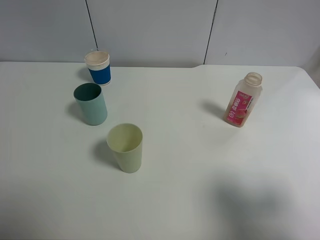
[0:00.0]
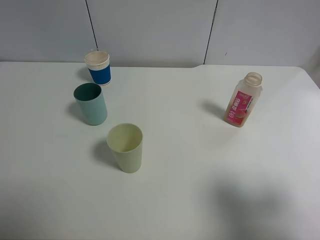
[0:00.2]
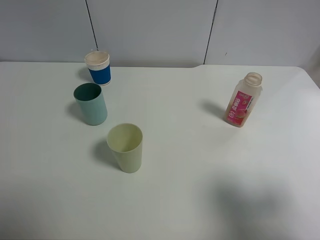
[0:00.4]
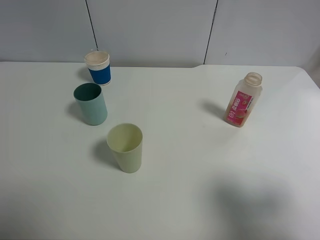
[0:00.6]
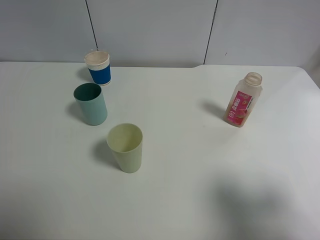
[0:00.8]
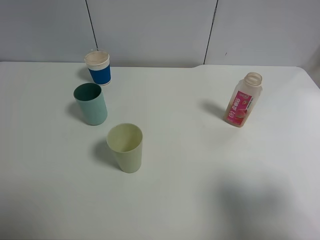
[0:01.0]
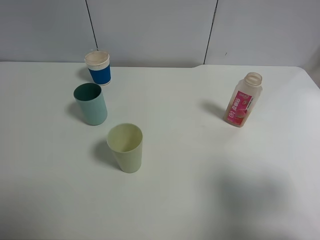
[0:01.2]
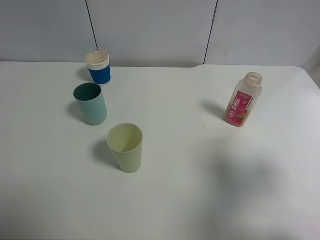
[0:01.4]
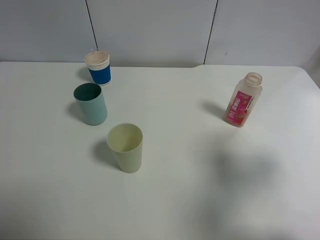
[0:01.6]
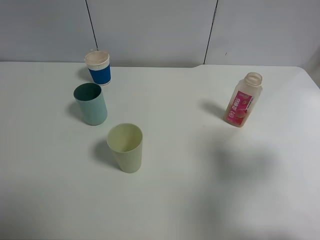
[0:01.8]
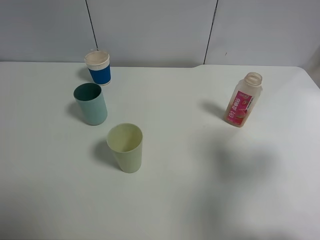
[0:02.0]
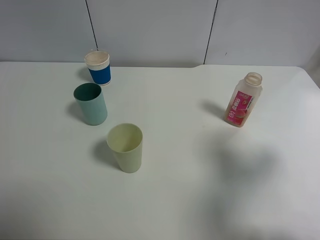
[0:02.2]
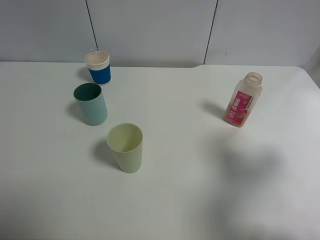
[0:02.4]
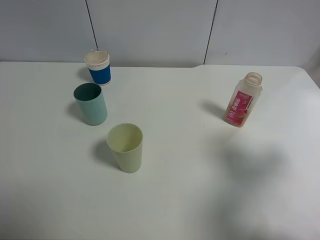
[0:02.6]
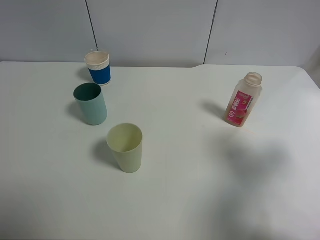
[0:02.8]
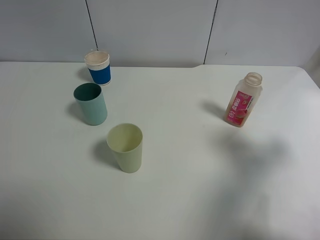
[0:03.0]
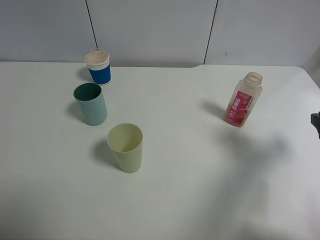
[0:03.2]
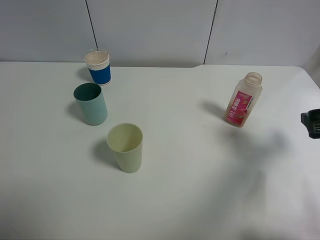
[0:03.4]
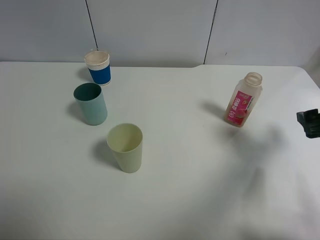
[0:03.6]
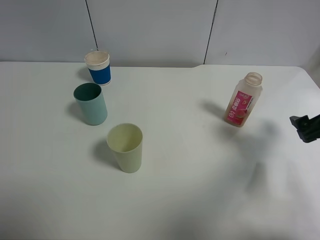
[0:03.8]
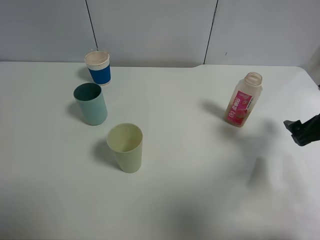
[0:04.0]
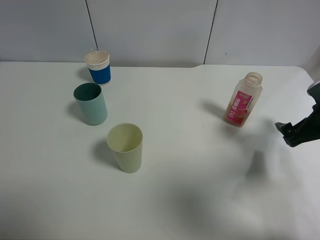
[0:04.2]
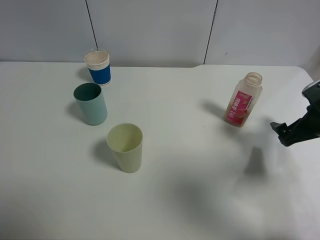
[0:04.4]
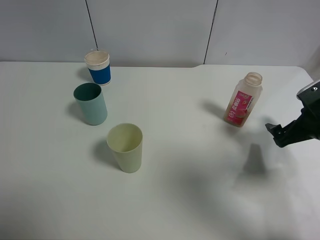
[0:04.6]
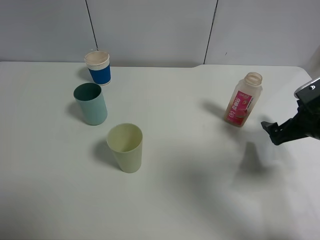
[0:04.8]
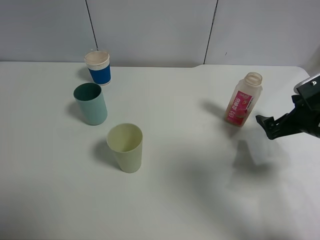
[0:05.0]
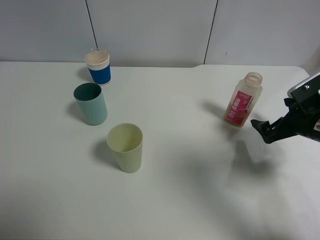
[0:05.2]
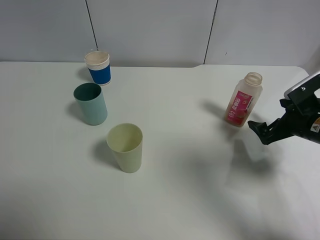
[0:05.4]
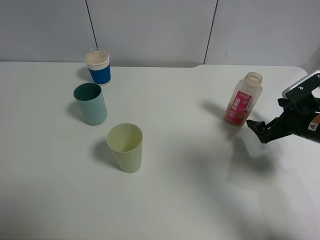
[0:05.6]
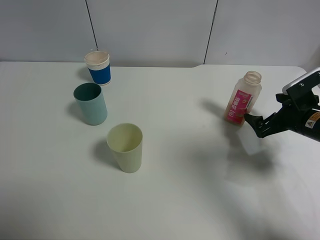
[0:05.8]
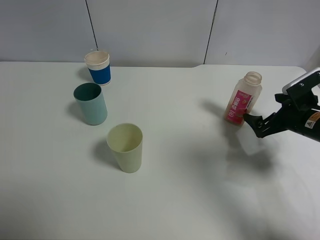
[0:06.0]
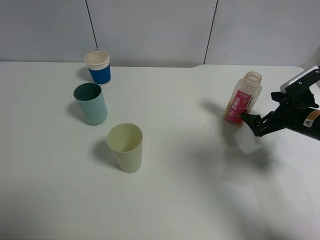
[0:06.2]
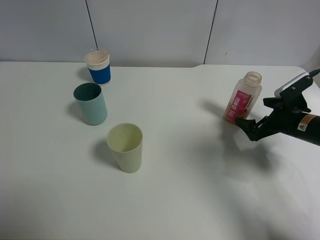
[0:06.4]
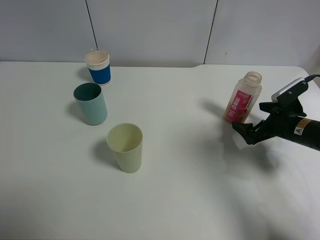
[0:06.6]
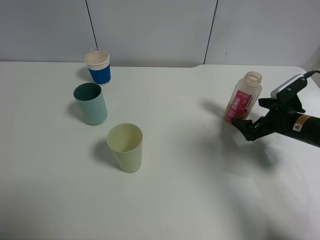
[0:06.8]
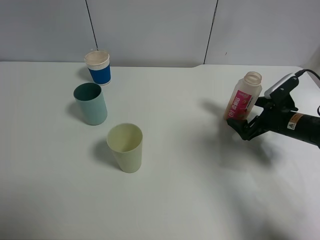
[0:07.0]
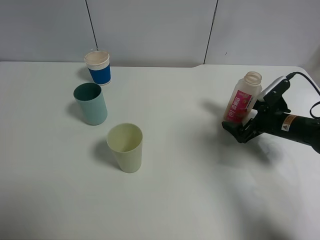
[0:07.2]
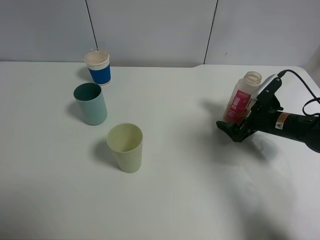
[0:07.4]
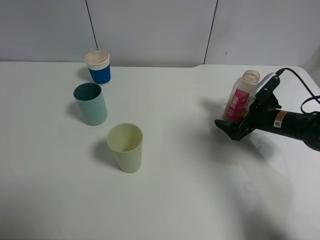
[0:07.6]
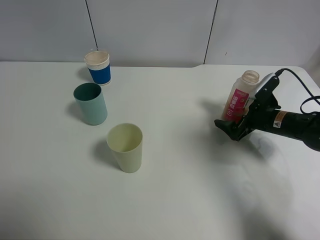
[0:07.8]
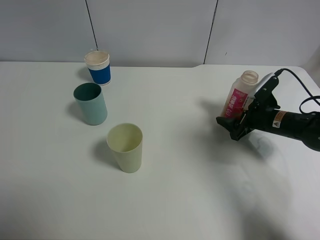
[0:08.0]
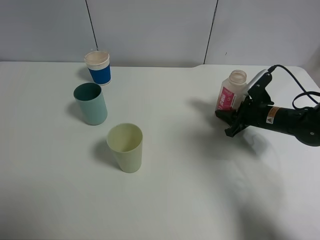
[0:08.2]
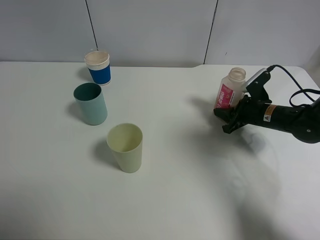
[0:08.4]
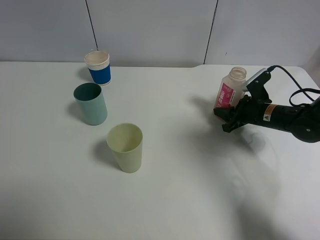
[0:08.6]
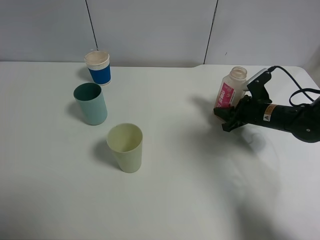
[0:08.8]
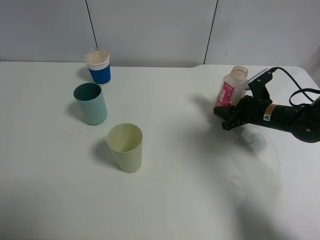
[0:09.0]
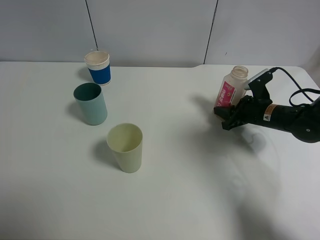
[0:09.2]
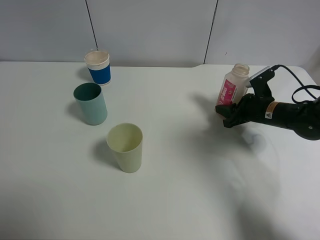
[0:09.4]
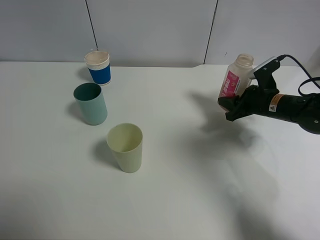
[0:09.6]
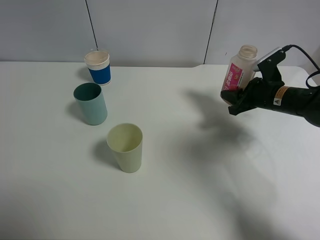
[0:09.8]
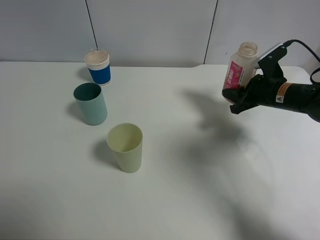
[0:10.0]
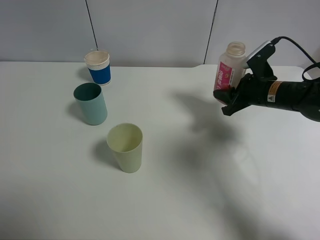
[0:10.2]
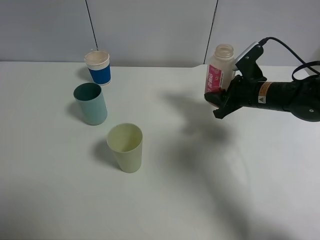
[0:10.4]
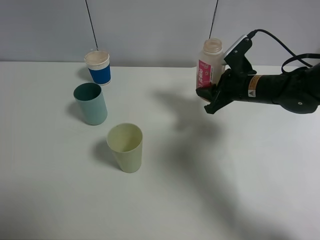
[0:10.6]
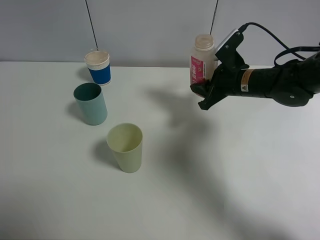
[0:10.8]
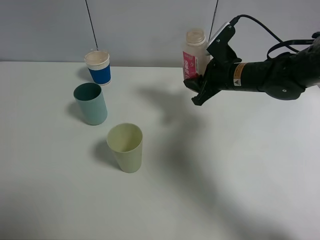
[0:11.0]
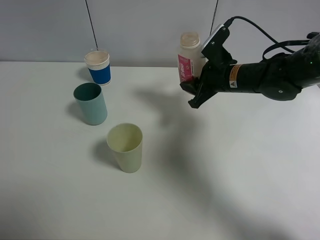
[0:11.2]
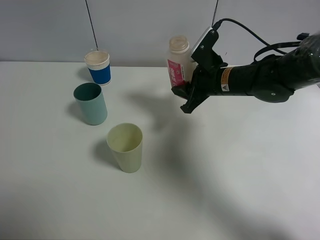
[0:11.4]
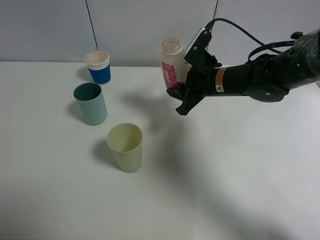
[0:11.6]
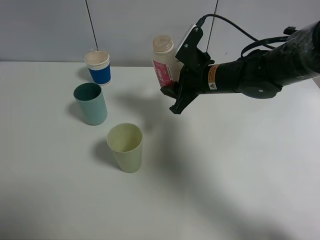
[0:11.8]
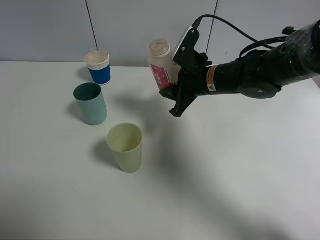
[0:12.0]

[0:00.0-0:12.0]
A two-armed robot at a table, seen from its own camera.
Task of the whole recording: use a clamp to hold the bottle of the drink, pour the beverage into a random cup, then clamp the cup containing the drink and pour the drink into another random cup.
Step, 0:00.0 to 0:09.4: Pick up the drink bottle with right gripper.
0:00.0 to 0:01.6: The right gripper goes about 10 cm forward.
0:01.6 to 0:03.0: The right gripper changes place by approximately 5 cm.
0:03.0 to 0:04.4: The right gripper is displaced forward and downward by roughly 15 cm.
0:04.4 to 0:06.0: The right gripper changes place by some 5 cm.
0:06.0 to 0:07.6: The right gripper shifts by roughly 5 cm.
0:07.6 to 0:09.0: The right gripper closes up.
0:09.0 to 0:10.4: The right gripper shifts roughly 5 cm upward.
0:10.4 to 0:12.0: The right gripper shifts roughly 15 cm to the left.

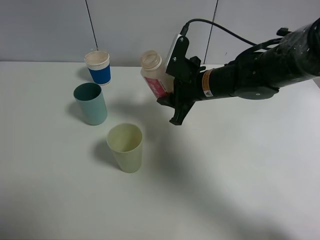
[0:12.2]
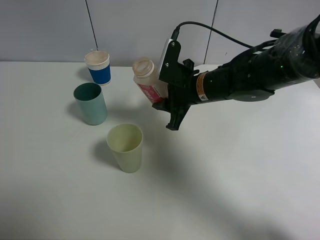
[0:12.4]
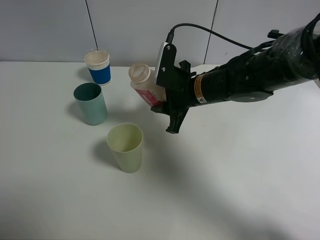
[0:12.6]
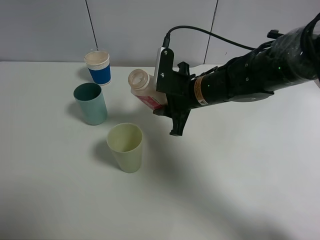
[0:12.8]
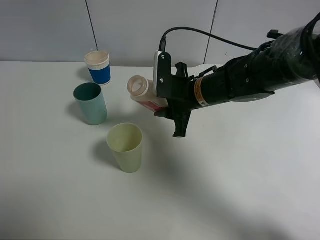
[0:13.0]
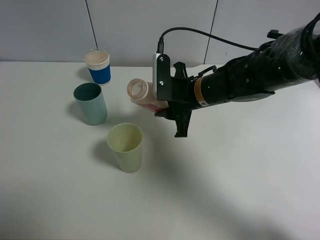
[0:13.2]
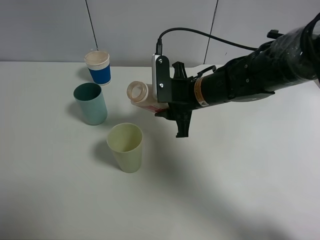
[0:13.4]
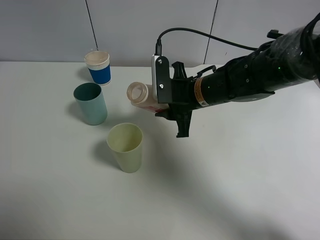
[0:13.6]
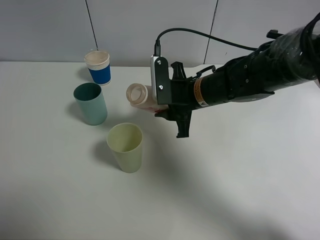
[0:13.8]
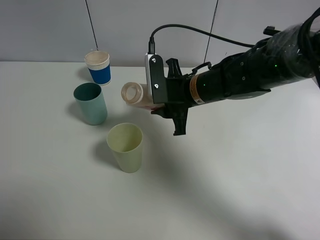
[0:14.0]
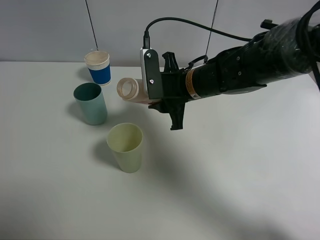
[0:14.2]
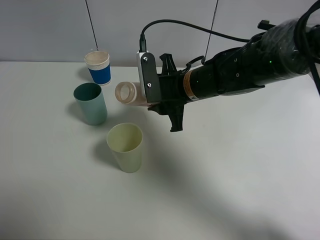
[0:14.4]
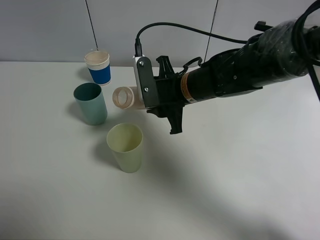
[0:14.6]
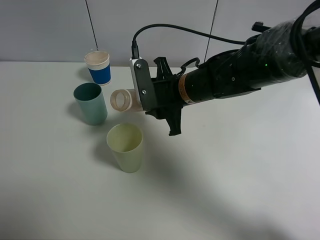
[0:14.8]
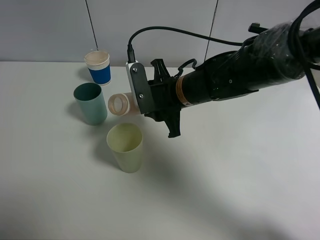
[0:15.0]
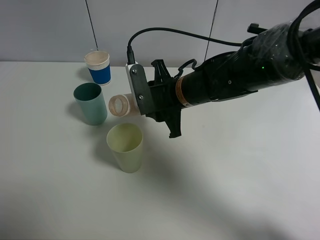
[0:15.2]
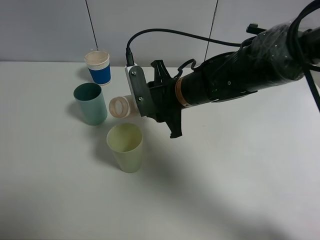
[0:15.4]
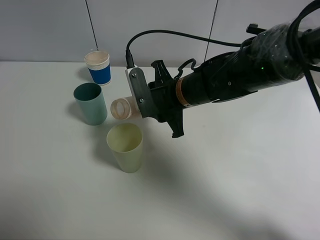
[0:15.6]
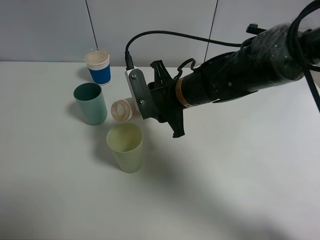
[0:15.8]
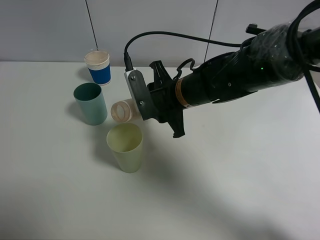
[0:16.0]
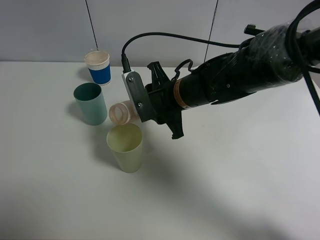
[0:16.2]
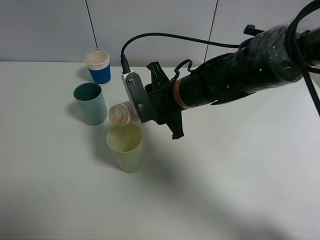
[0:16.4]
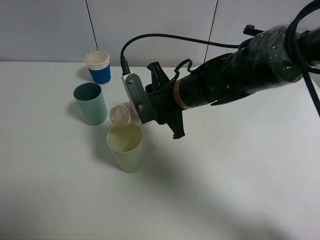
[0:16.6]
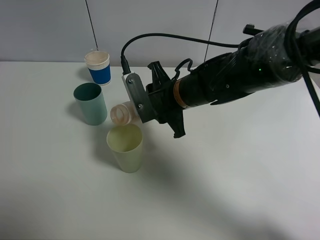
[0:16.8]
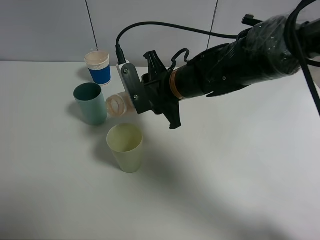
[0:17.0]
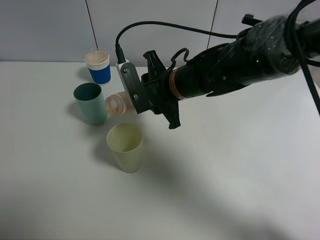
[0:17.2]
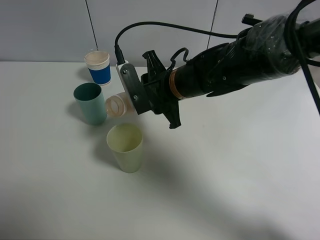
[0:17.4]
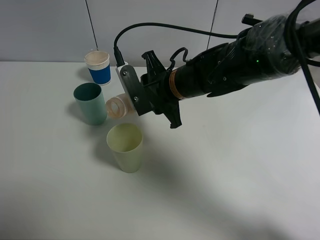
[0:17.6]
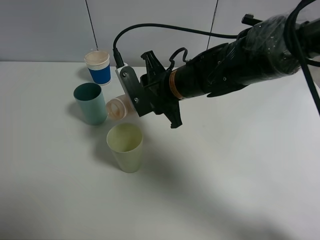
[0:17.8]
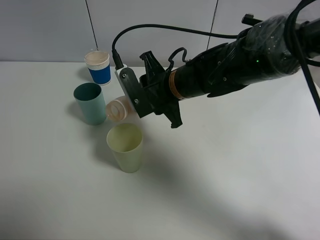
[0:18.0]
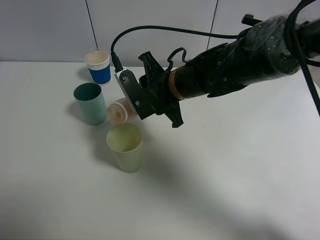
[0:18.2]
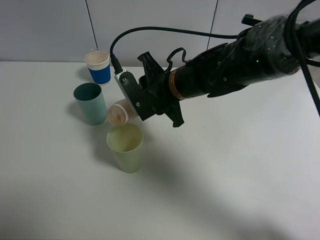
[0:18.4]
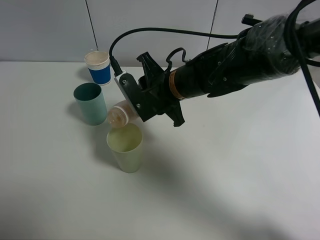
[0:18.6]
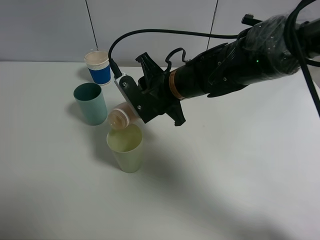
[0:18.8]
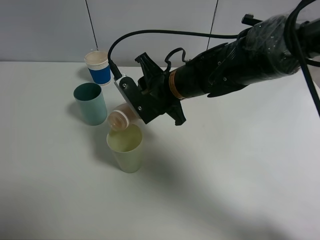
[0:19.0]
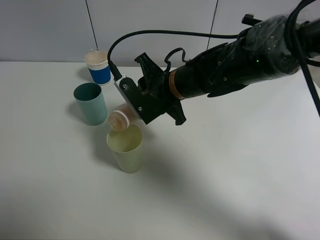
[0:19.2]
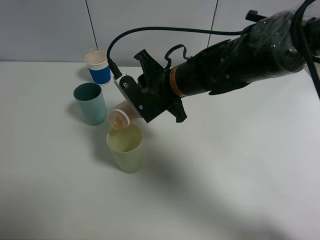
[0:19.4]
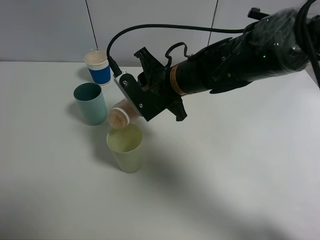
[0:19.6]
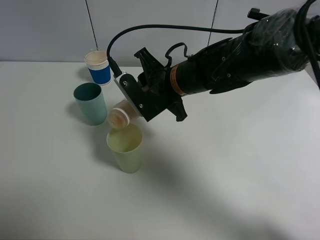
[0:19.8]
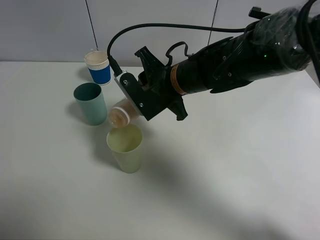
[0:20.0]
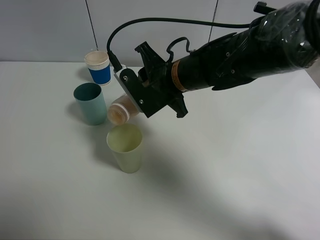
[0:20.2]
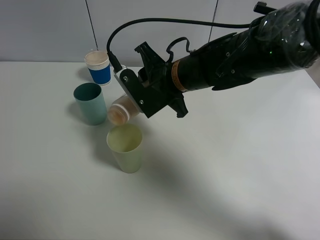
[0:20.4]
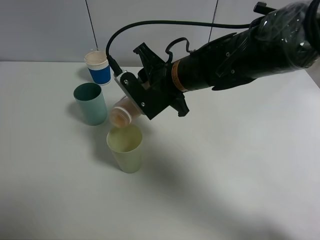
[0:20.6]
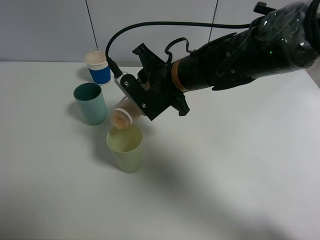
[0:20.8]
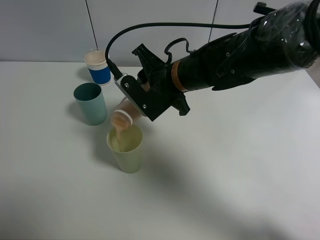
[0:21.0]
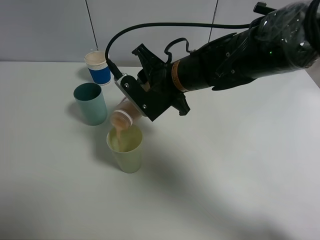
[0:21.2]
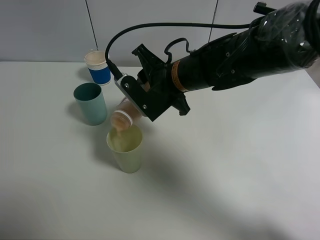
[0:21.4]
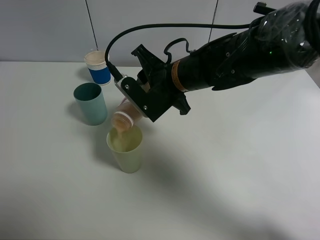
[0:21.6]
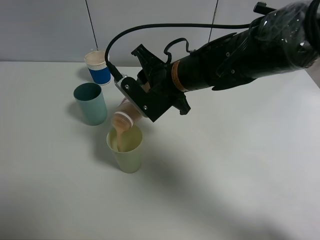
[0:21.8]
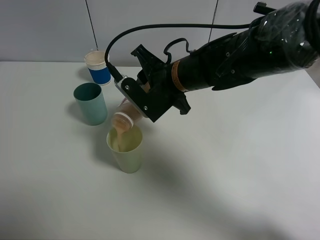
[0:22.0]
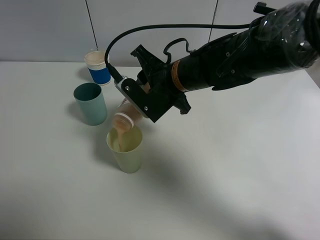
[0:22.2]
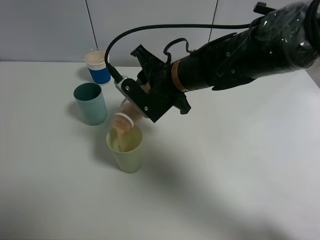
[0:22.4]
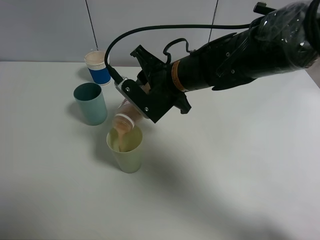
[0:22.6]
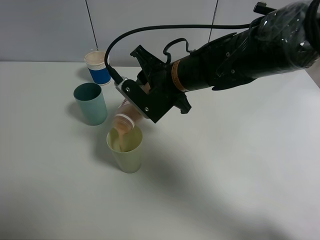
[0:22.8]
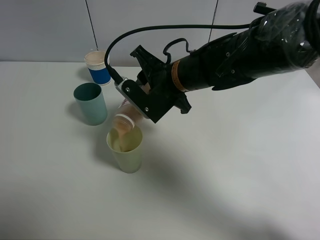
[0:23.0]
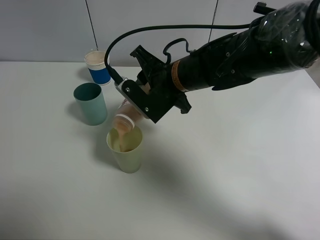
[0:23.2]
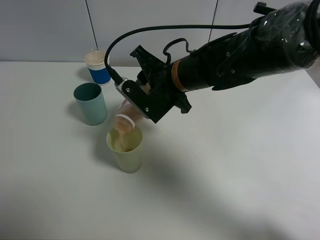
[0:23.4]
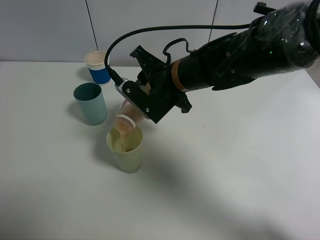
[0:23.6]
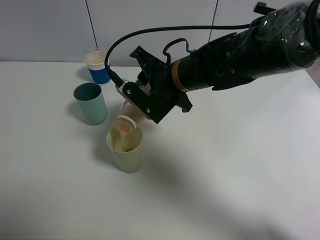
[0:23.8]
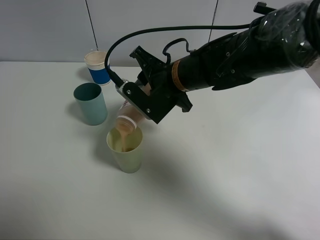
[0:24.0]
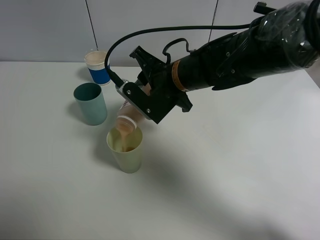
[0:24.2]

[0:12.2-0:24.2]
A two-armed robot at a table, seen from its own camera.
Task of the whole recording: use a clamp to hold the bottle of the drink, pour the beverage into a random cup, then clamp the cup containing the drink and pour the drink into another random cup.
0:13.8 to 0:15.2: The grippers stay close to where they were, moving slightly.
0:15.2 to 0:18.2: The grippers make only small movements.
0:18.2 to 0:21.2: There are only small adjustments of the grippers.
0:21.2 to 0:22.6: Both grippers stay put.
0:22.6 to 0:24.2: Both grippers stay put.
